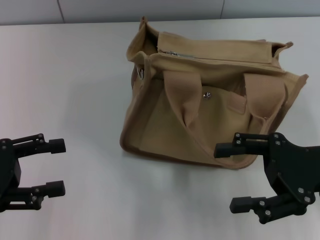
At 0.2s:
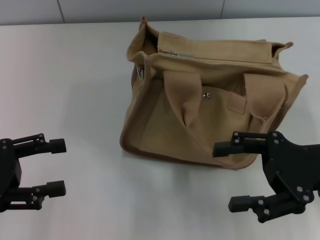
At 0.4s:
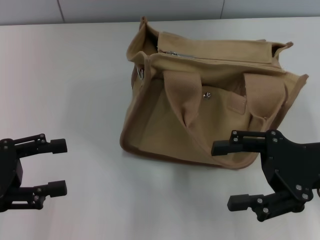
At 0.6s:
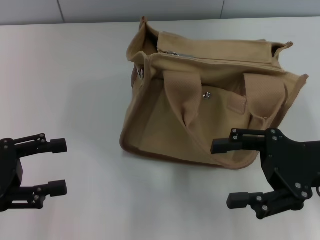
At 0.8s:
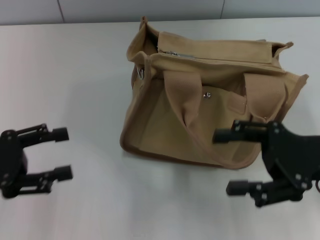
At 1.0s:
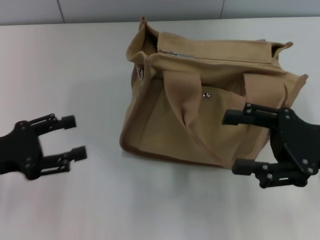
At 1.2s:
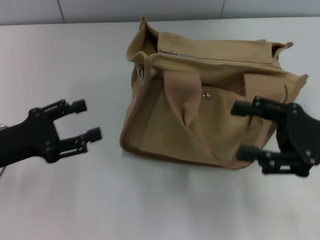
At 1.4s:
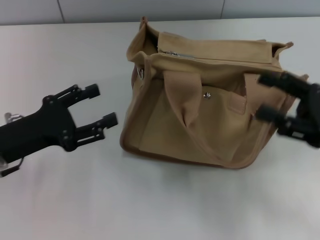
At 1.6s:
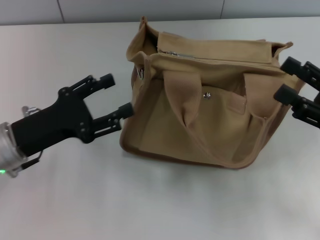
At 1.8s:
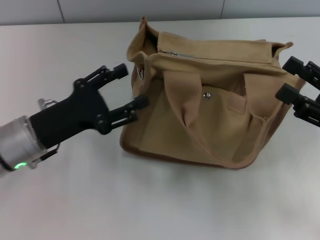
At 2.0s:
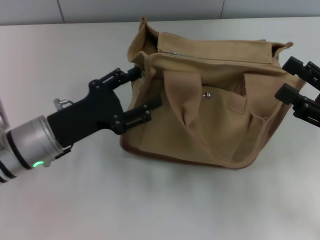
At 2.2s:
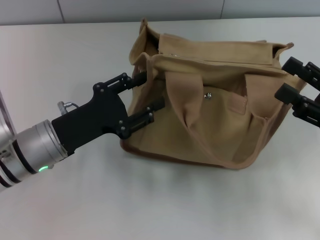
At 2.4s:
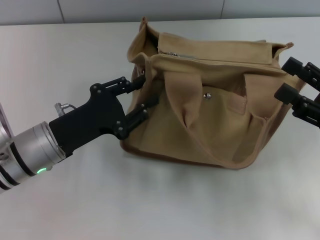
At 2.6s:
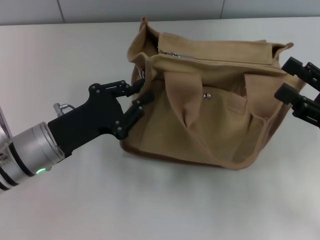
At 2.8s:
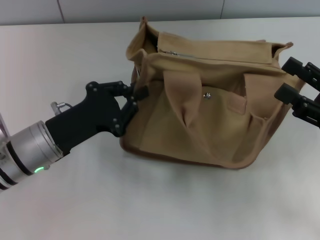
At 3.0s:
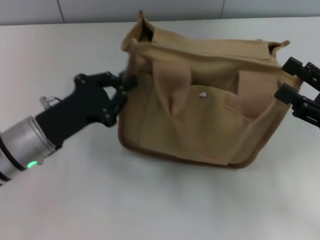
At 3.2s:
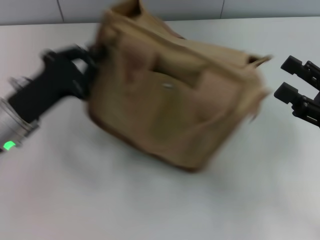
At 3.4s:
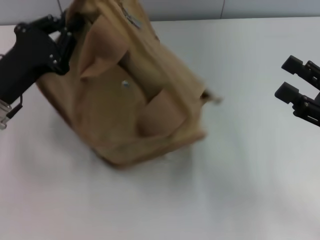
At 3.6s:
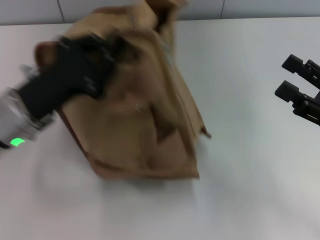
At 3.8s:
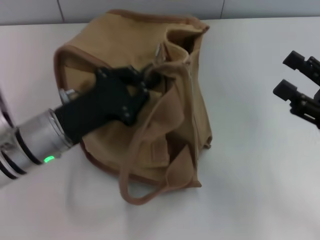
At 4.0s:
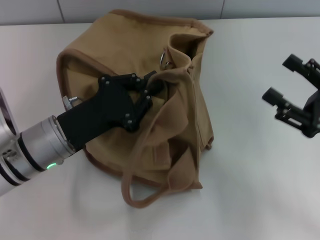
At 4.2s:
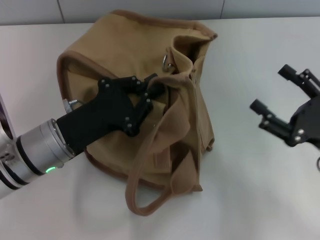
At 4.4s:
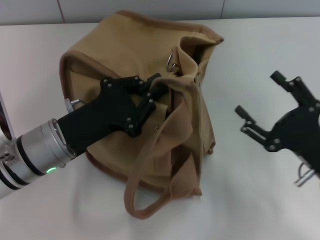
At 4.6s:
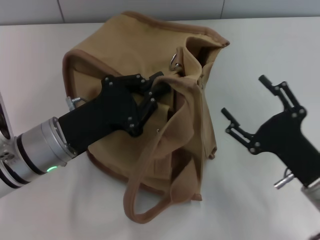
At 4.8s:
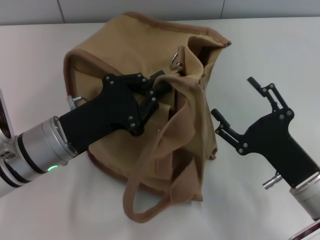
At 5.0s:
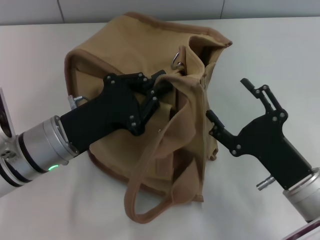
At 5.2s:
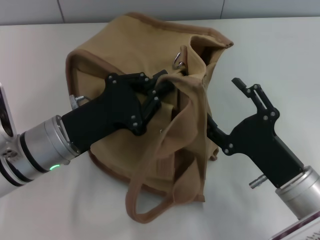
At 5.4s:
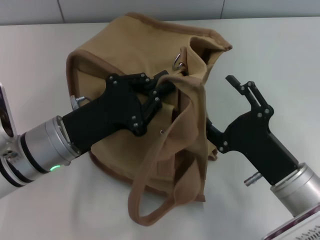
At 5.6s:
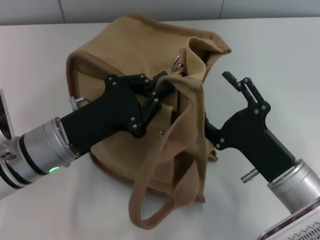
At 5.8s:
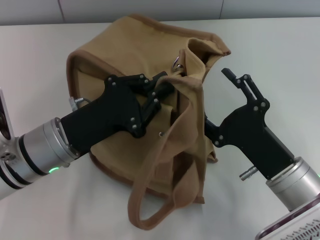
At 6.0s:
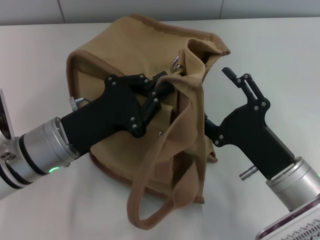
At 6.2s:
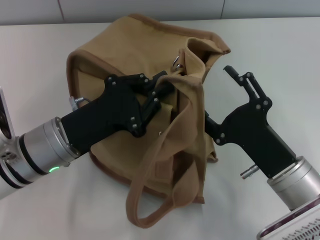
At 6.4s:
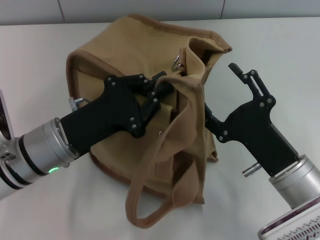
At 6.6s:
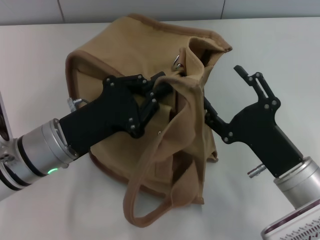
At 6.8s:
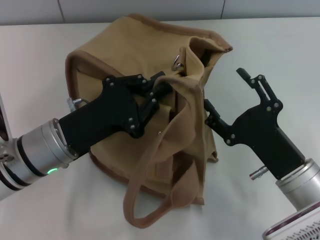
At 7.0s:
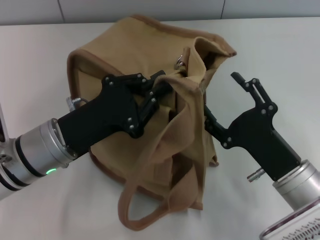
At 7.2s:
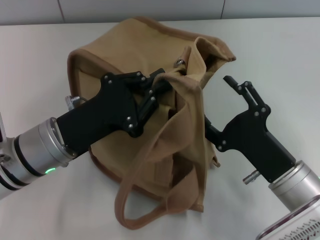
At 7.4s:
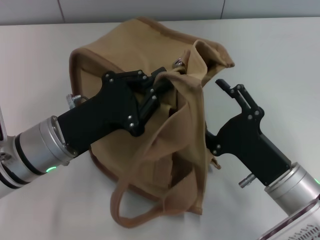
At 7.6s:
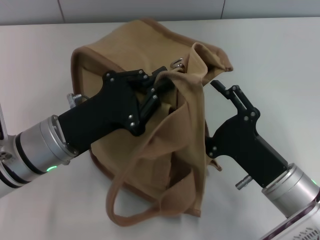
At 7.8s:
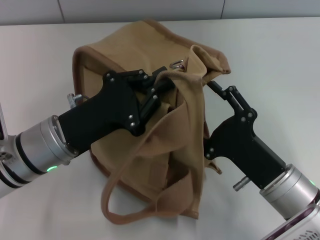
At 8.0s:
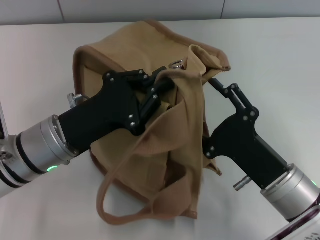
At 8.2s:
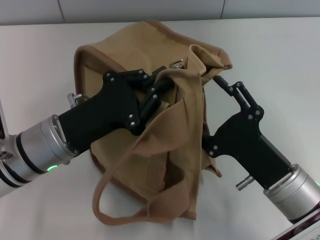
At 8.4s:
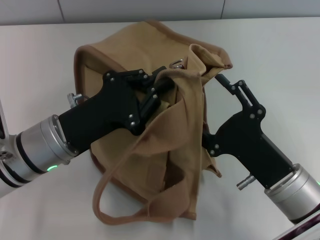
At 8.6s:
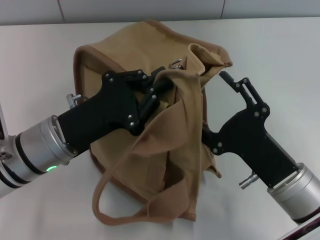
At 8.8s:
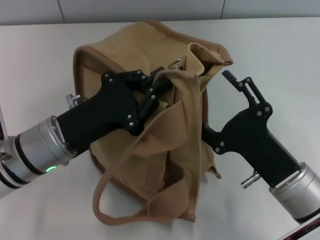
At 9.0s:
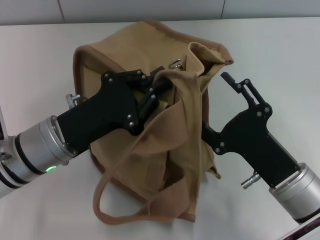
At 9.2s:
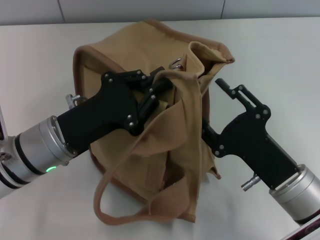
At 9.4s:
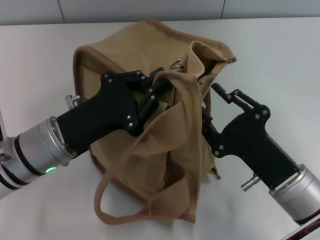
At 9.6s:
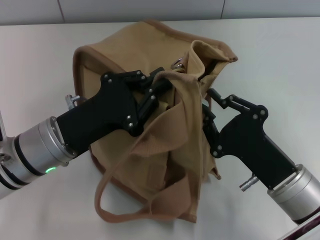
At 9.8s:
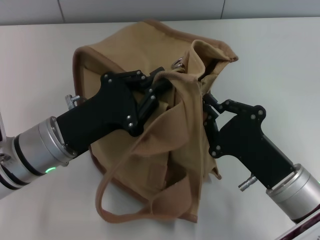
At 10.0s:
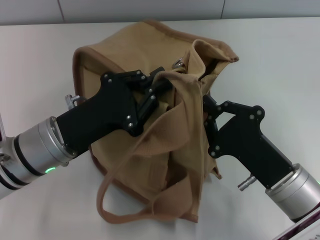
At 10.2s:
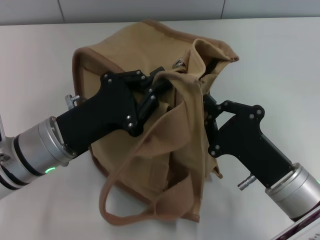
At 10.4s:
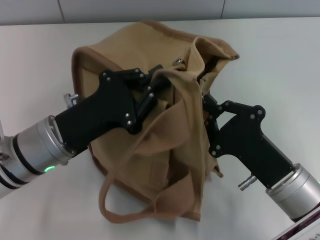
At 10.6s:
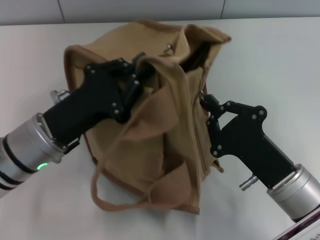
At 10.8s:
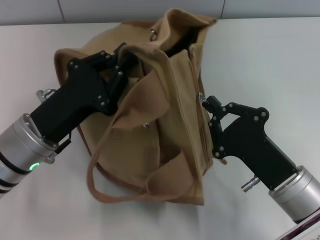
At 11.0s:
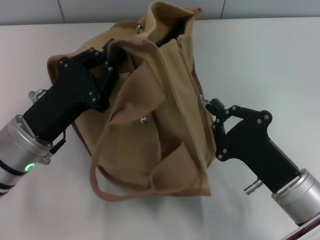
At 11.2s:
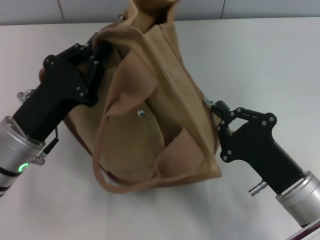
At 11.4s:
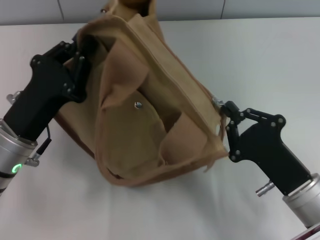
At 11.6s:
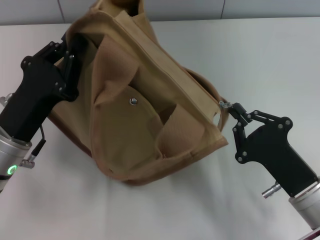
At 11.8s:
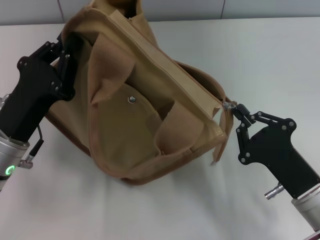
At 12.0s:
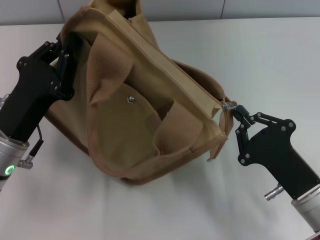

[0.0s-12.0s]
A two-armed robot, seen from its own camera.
0.0s to 1.6s: The left gripper moves to the right, approximately 10 cm. Meanwhile the right gripper goes some 5 cm to the right.
1.6s to 3.0s: The left gripper closes up.
3.0s to 4.4s: The right gripper goes some 10 cm downward and to the left.
4.4s to 6.0s: The right gripper goes approximately 5 cm to the left.
6.0s to 7.6s: Neither gripper changes place.
7.6s to 9.0s: The grippers make only small movements.
9.0s to 10.4s: The right gripper closes its fingers.

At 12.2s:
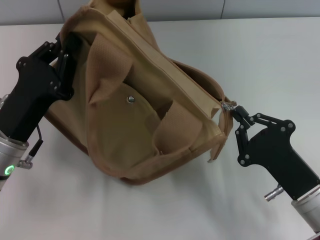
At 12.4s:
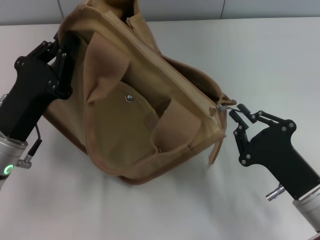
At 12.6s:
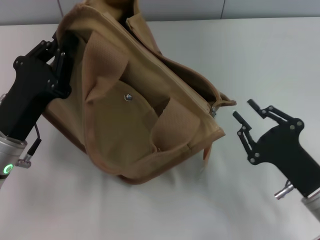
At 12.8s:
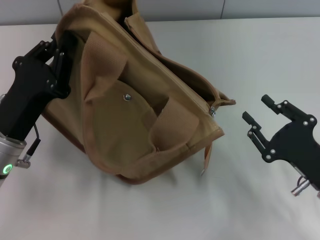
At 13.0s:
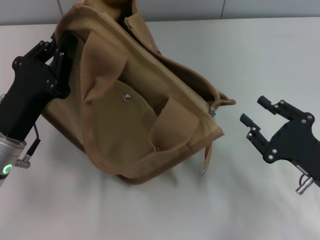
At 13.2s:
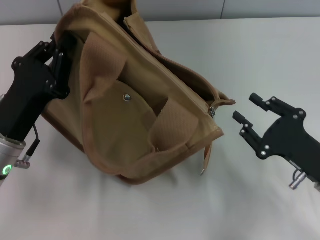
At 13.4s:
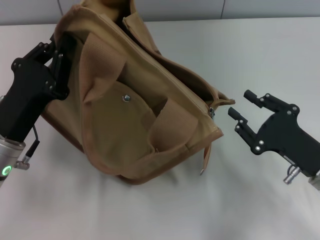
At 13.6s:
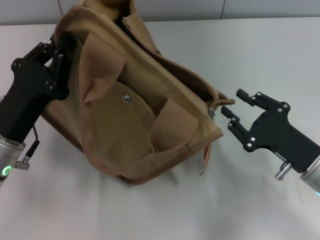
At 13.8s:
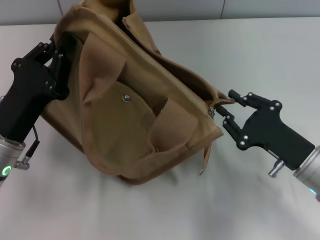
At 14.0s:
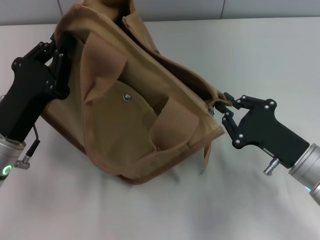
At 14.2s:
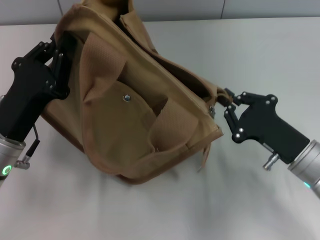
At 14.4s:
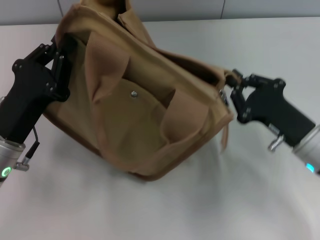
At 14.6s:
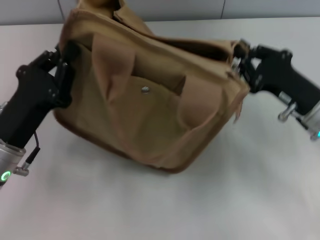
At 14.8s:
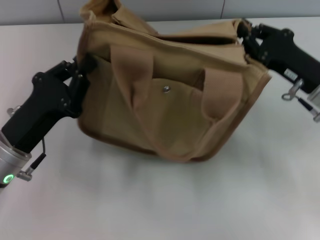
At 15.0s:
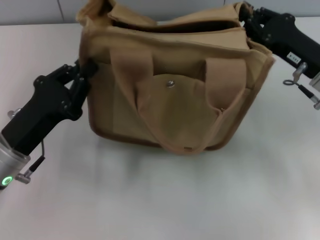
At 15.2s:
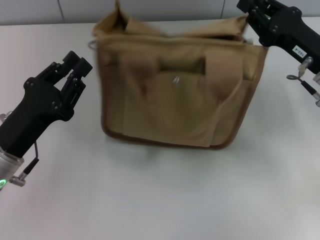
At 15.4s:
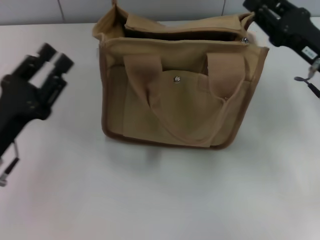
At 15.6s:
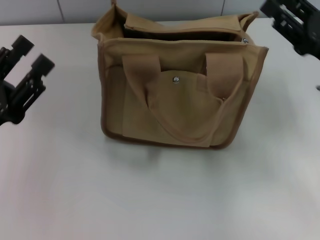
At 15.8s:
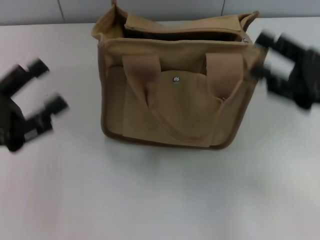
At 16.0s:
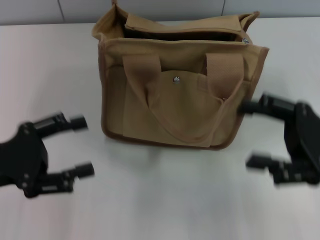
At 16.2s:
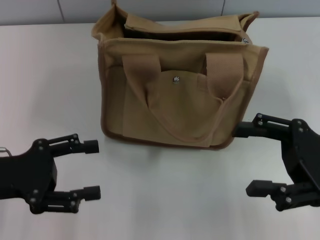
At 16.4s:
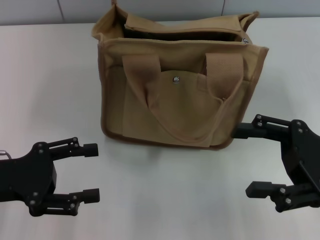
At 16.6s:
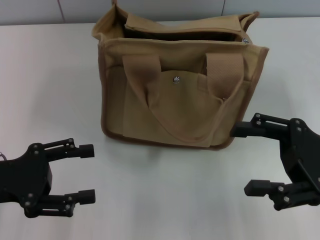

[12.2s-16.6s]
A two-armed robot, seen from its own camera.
12.2s to 13.6s: The right gripper shifts by about 5 cm, and opens.
13.6s to 15.2s: The right gripper goes approximately 15 cm forward and upward, and closes its fingers.
15.2s to 16.6s: The right gripper travels backward by some 10 cm, and opens up; the left gripper heads to the left, covering some 5 cm, and opens up.
